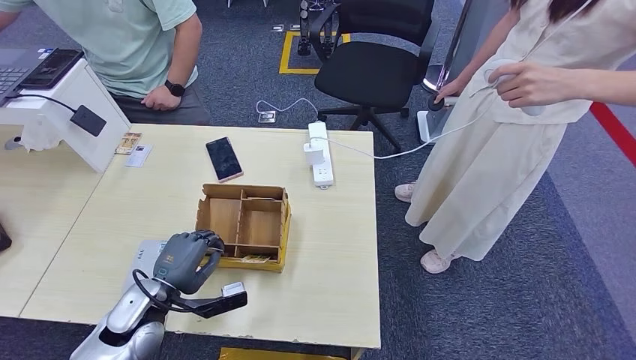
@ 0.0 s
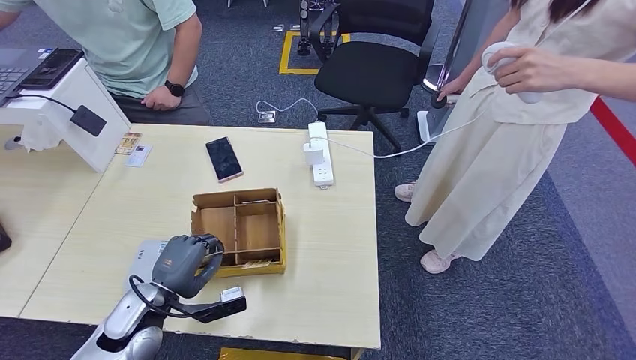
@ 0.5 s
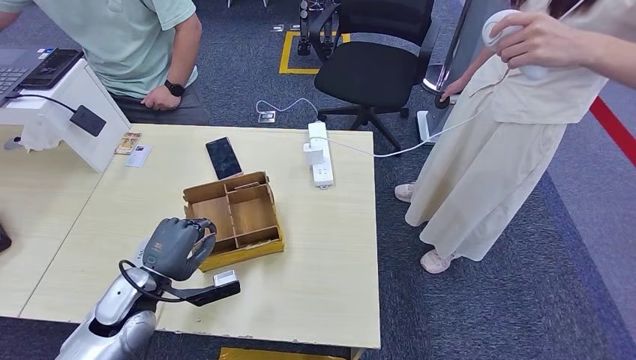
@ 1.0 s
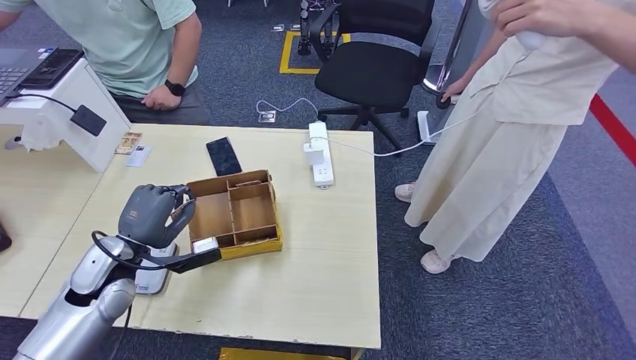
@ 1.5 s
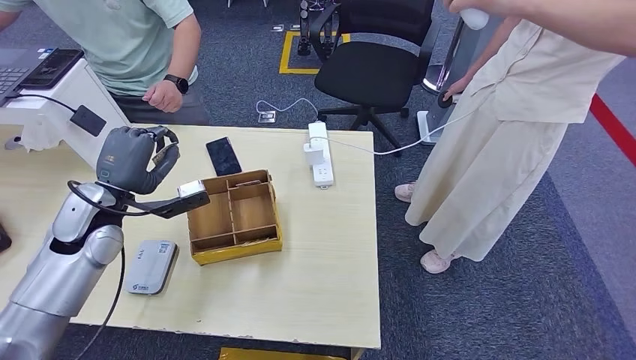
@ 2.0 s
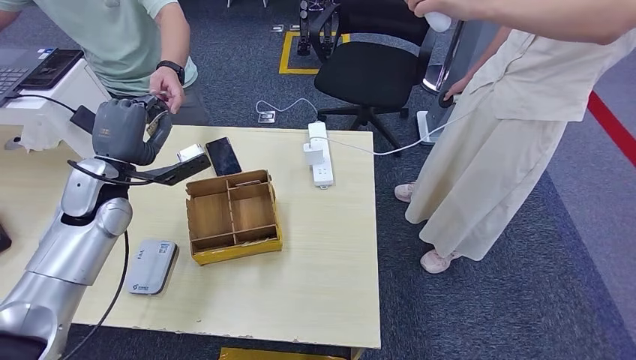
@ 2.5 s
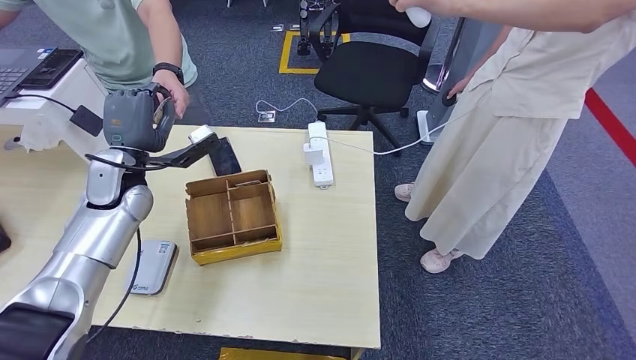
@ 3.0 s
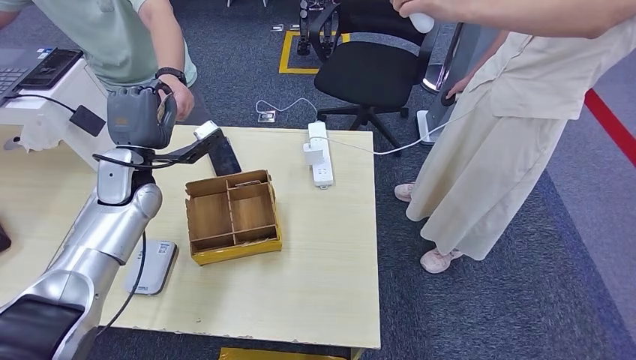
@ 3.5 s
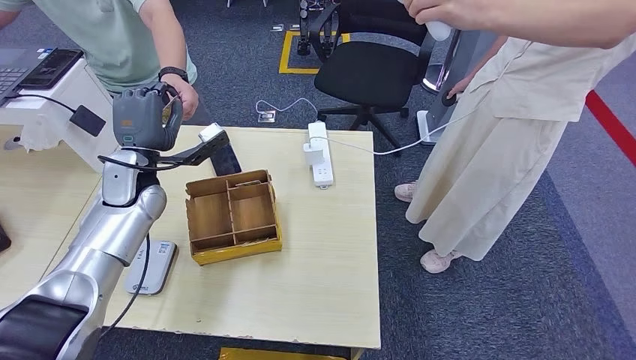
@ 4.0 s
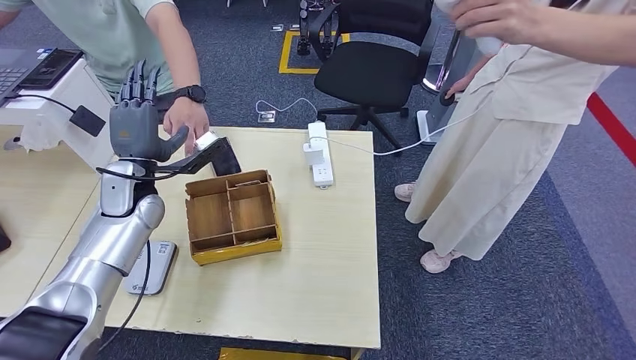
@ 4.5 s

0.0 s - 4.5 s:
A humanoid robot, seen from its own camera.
Step, 1.0 s - 4.0 s: Hand the room key to the person.
0.0 s - 2.0 s: The left hand moves upward, forward and to the left, approximately 20 cm.
2.0 s - 4.5 s: The left hand shifts approximately 5 cm forward.
